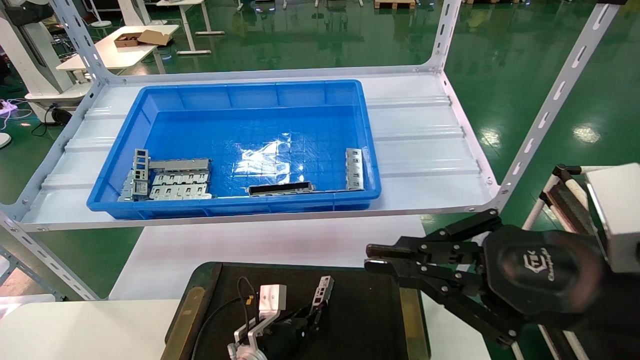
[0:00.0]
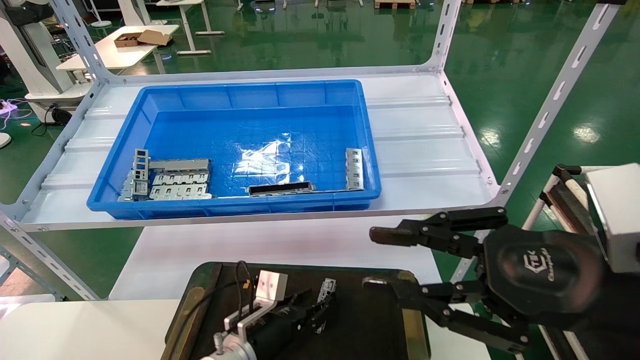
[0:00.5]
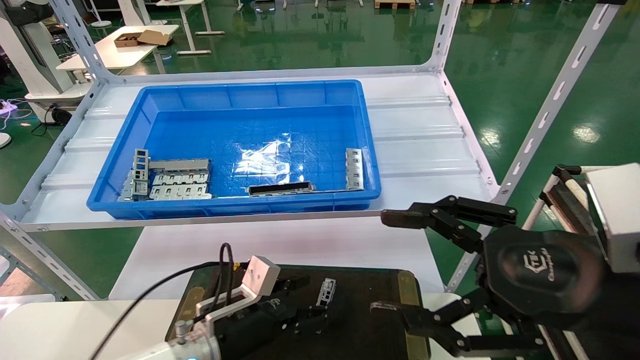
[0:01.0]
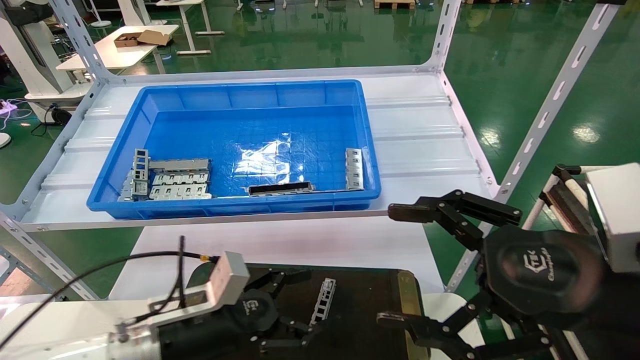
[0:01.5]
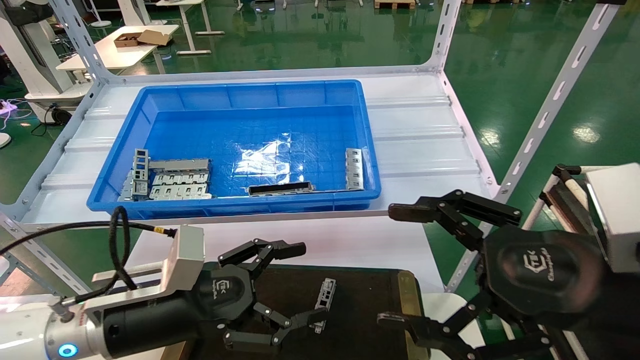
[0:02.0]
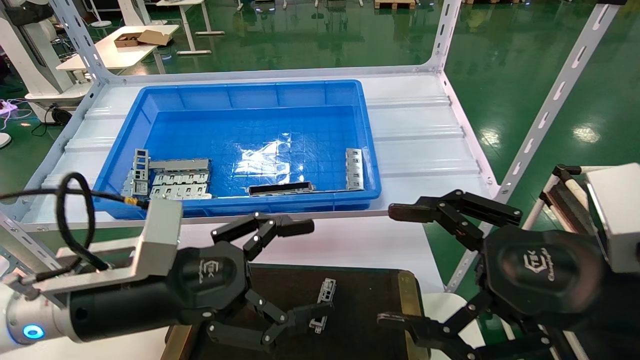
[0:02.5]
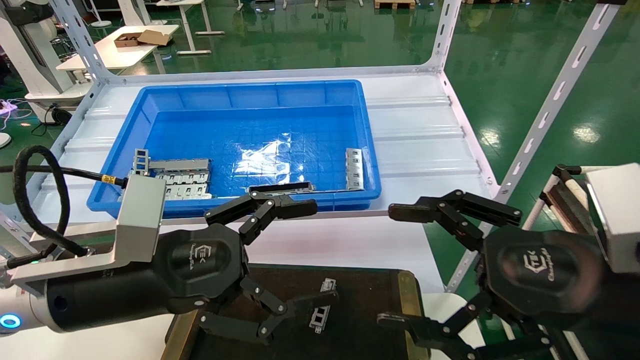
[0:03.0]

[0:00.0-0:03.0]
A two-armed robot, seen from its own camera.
Task of the whole recording: Grasp the part with one hand and place it on the black container.
0:00.0 to 0:01.5: The right gripper opens. The left gripper heads upward, backward and to the left, covering roughly 20 cm, and opens up.
0:01.5 to 0:03.0: The left gripper moves upward and backward, some 15 cm.
